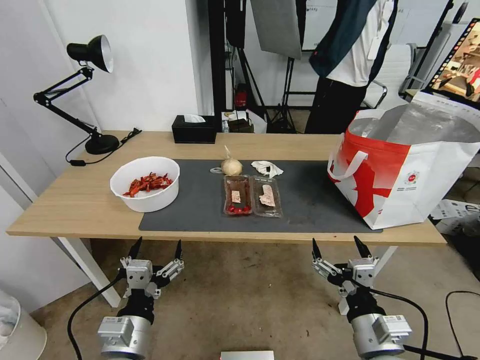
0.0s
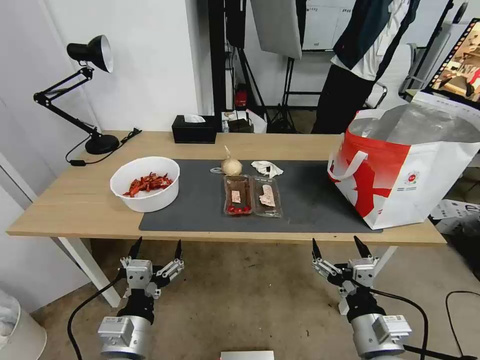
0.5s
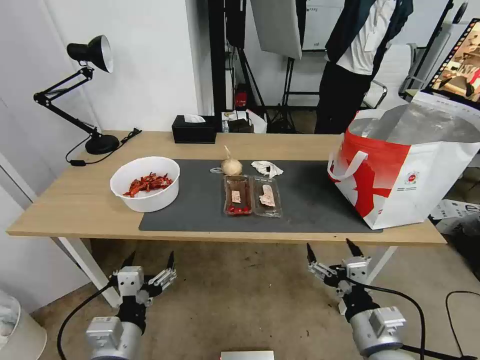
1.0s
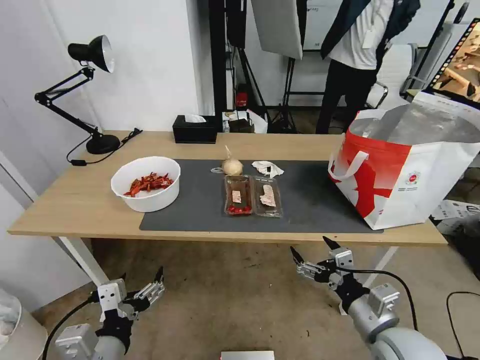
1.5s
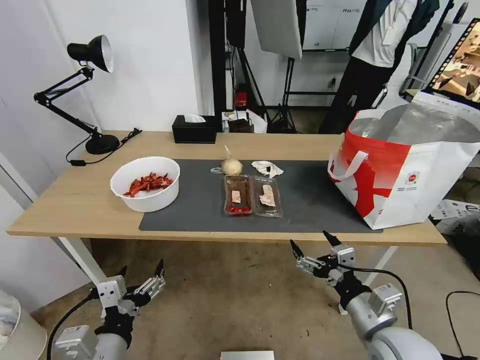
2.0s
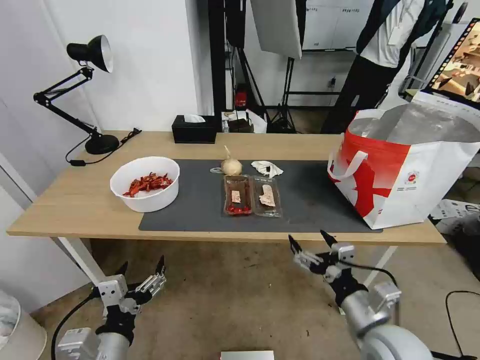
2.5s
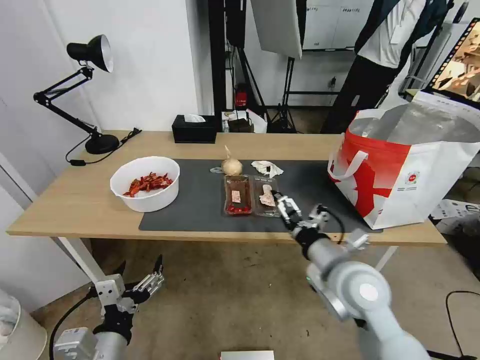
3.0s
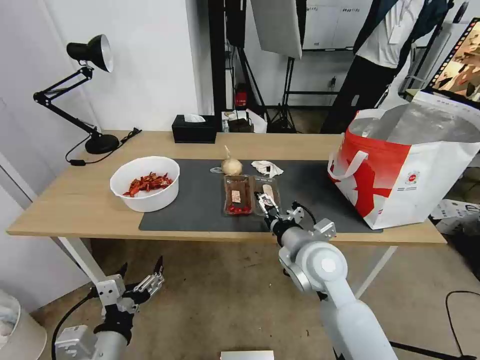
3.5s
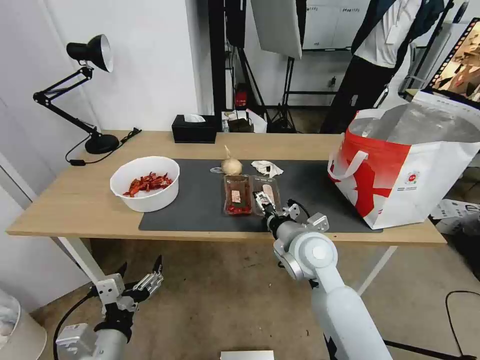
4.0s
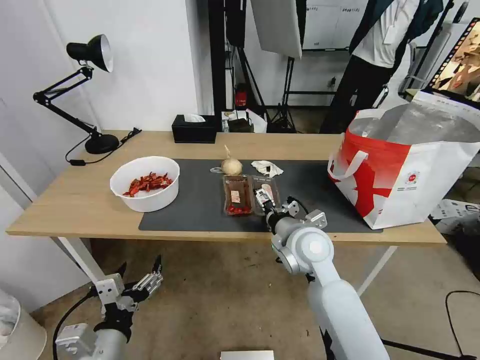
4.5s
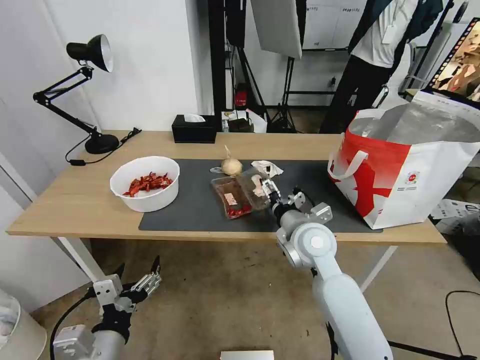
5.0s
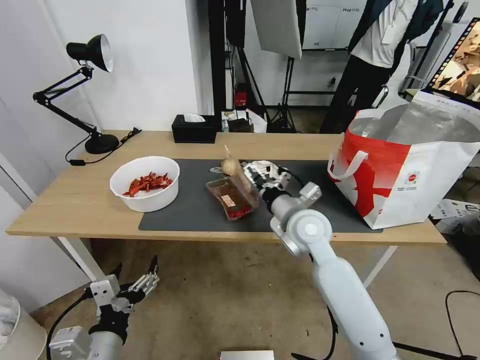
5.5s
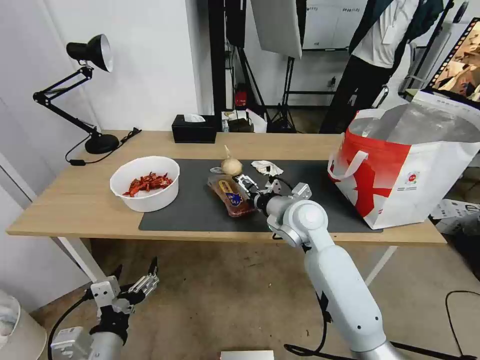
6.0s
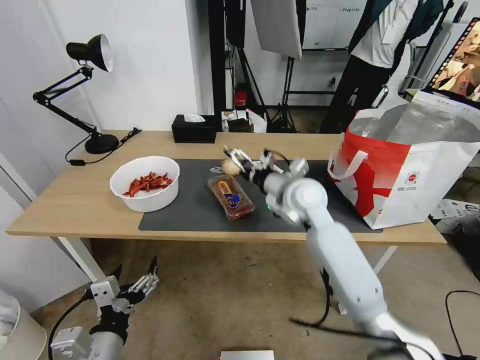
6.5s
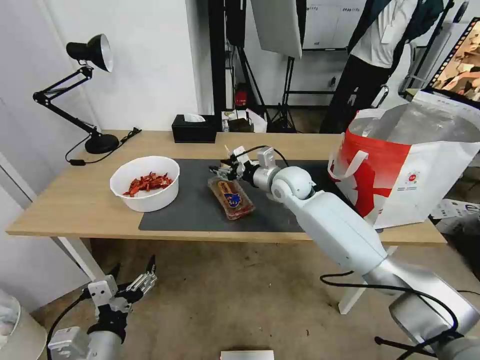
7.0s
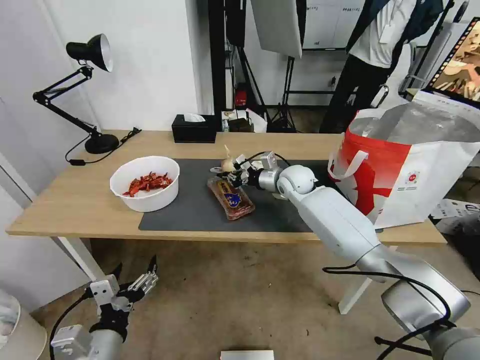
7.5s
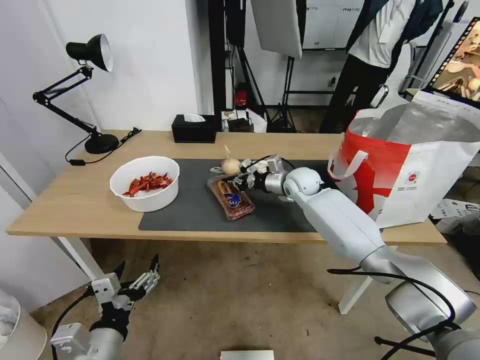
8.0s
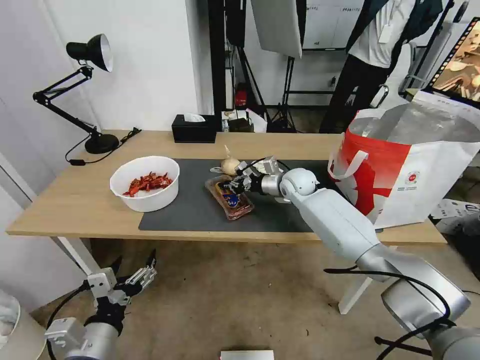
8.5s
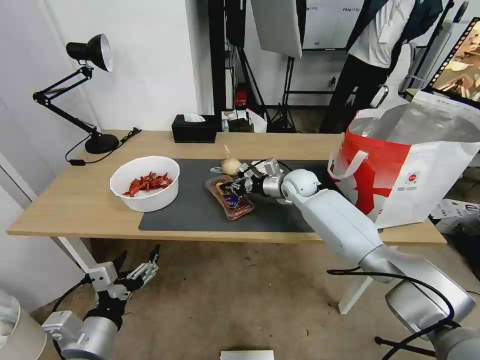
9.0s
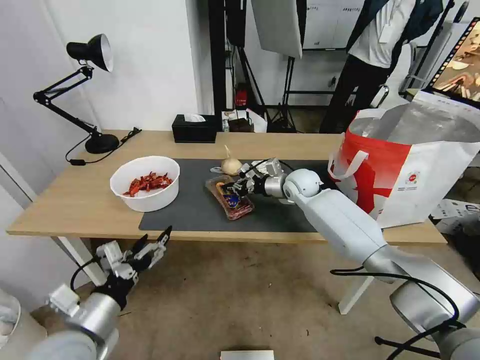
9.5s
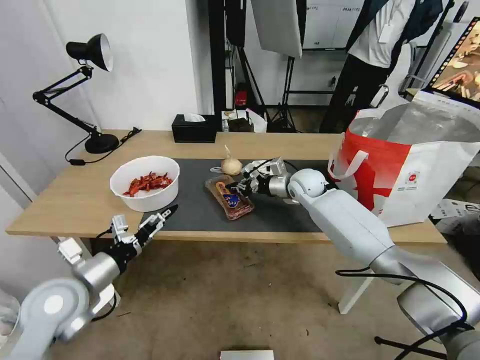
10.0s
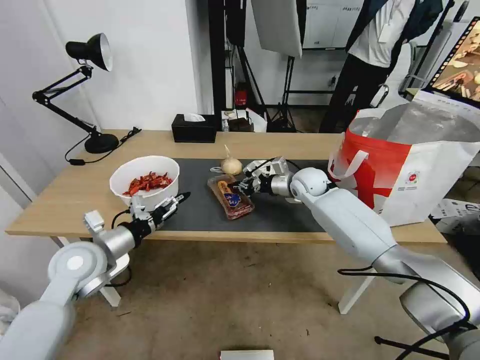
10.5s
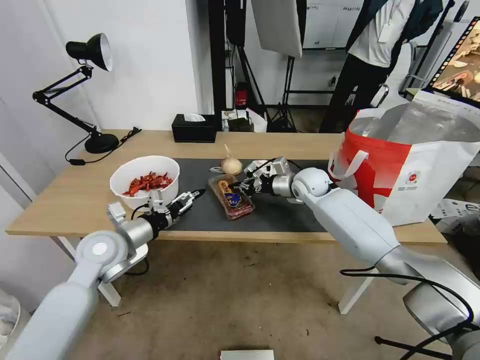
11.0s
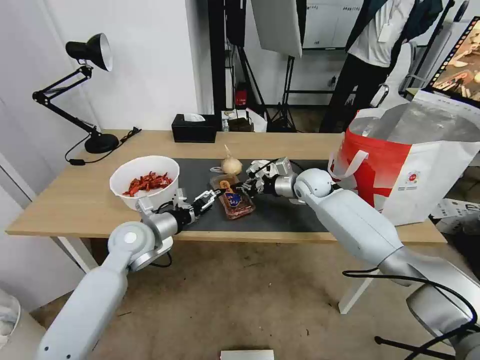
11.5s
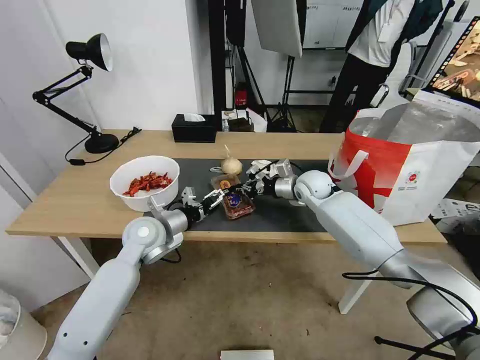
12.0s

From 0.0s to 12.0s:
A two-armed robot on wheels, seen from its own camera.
Task of the whole recording: Pick up the trash from the table and place it into the takeout bag.
From 2.0s to 4.0s: The right gripper moves forward and to the left, about 20 cm.
From 4.0s to 6.0s: The right gripper travels forward by roughly 5 cm.
From 6.0s to 8.0s: The right gripper shifts approximately 15 cm forward, and closes up.
From 8.0s to 10.0s: The left gripper shifts some 15 cm forward, to the left and upward.
From 10.0s to 12.0s: The left gripper travels forward and to the right by approximately 20 cm.

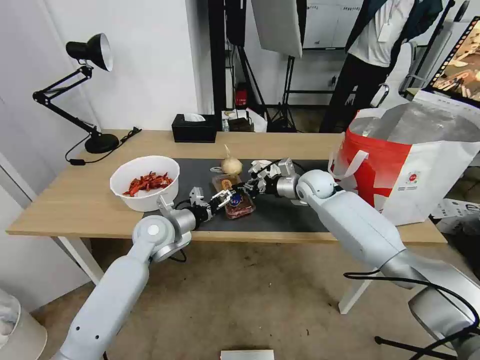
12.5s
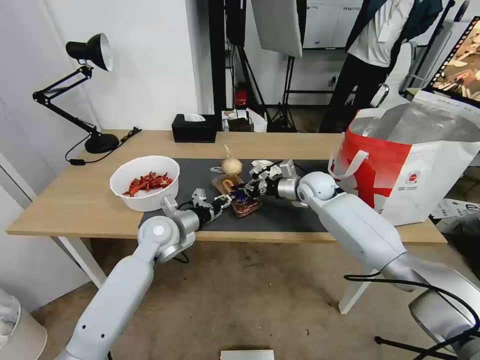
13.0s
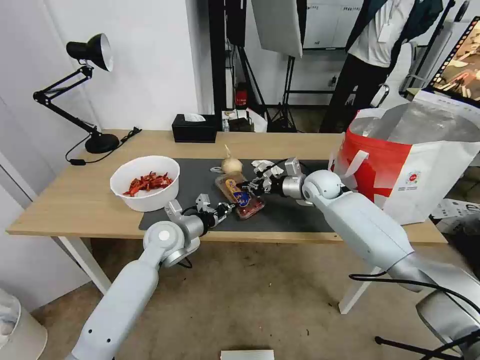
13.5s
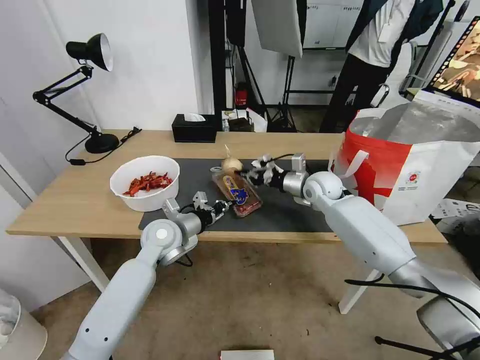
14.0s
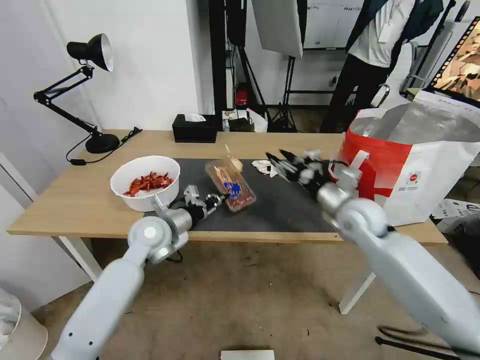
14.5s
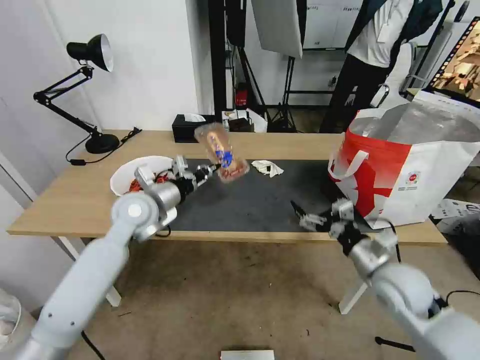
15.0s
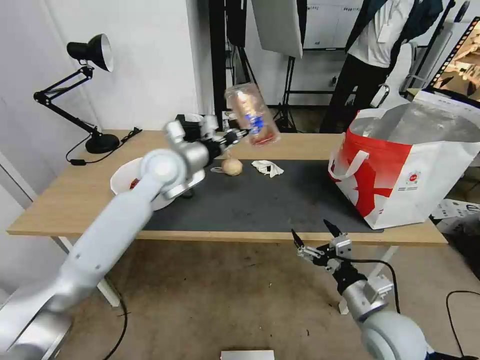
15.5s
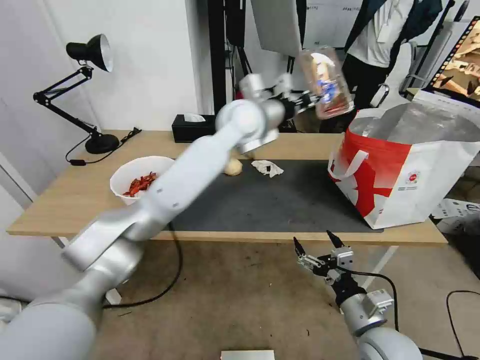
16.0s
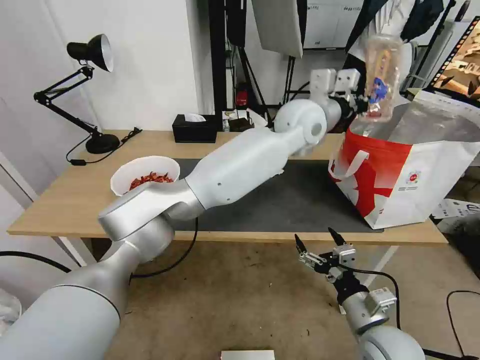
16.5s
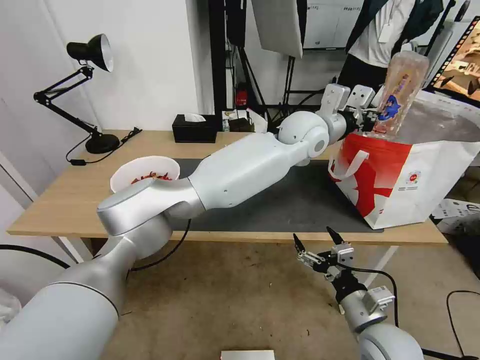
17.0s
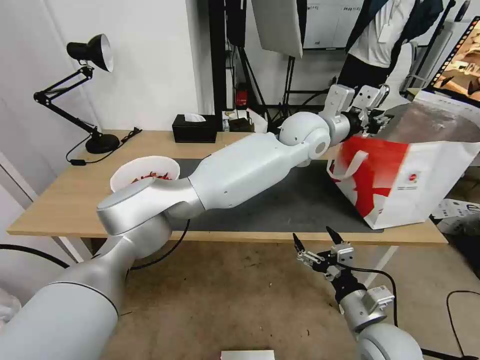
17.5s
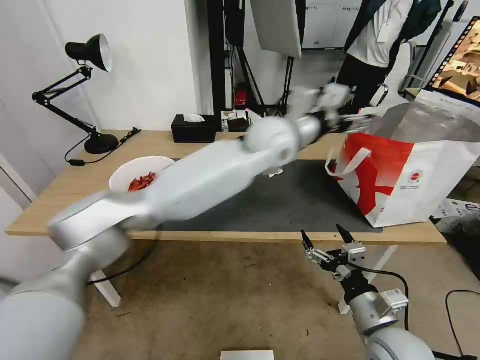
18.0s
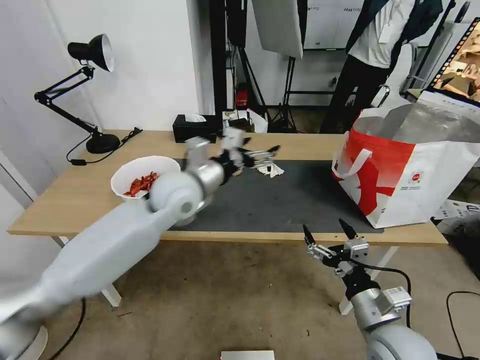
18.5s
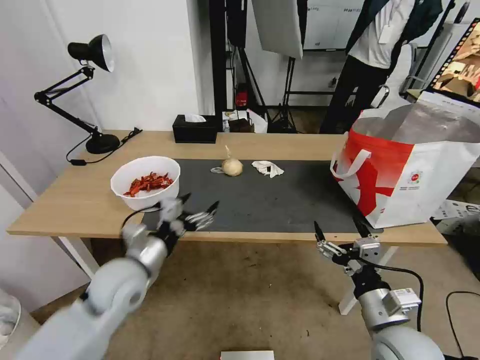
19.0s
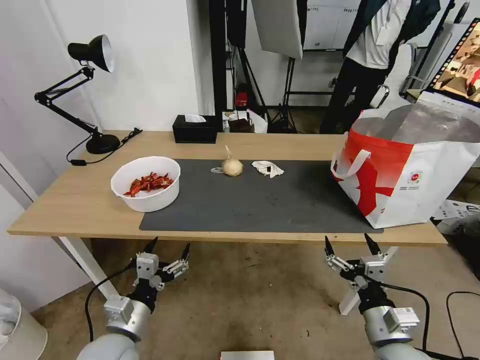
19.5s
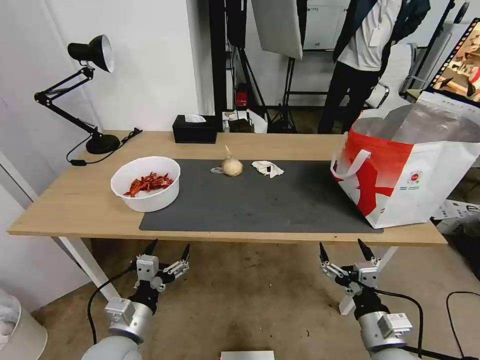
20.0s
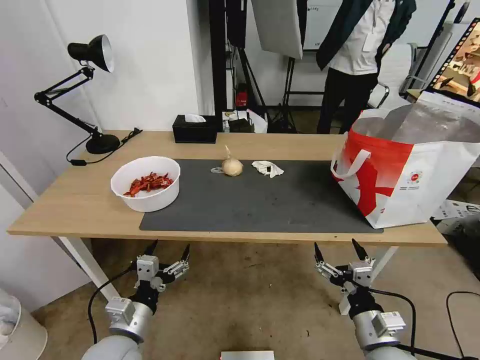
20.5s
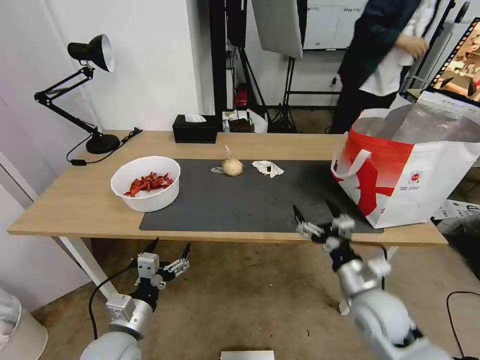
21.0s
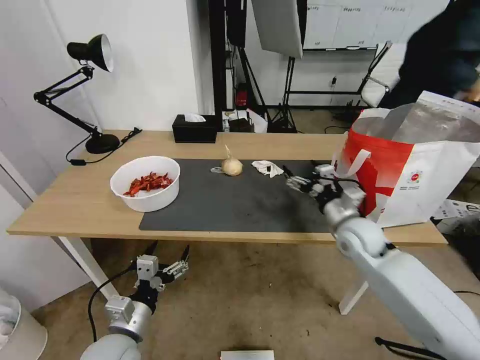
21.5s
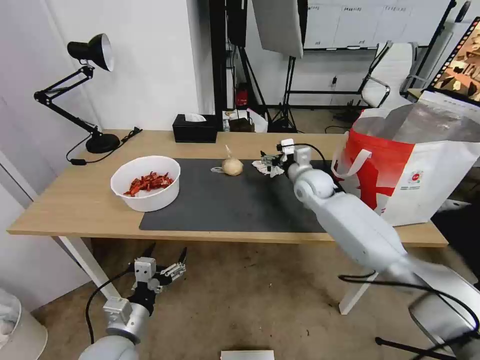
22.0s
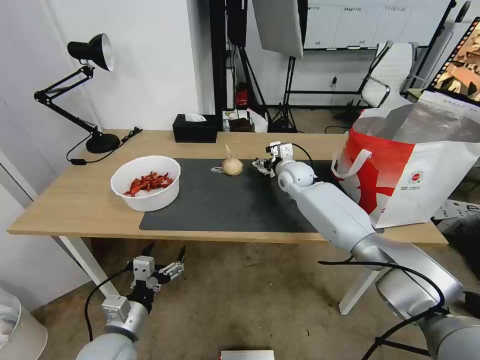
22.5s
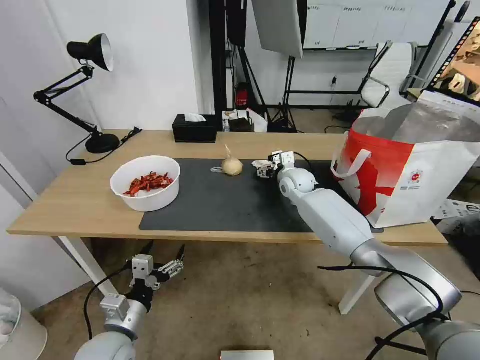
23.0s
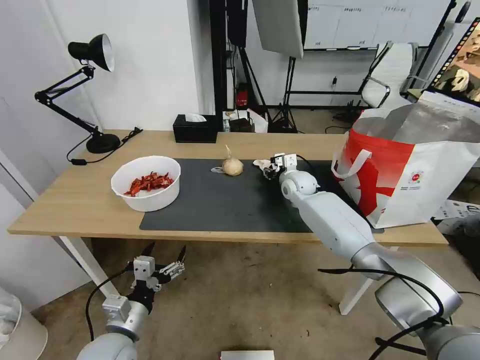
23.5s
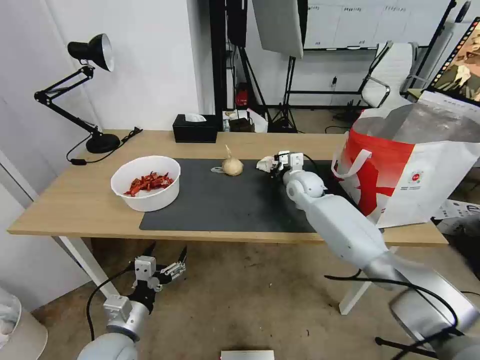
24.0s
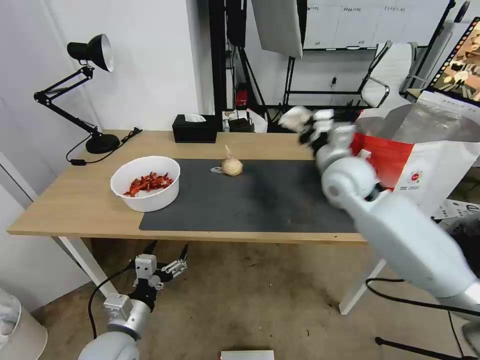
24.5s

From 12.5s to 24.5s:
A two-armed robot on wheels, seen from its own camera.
Task of the whole recording: Pick up the trash from the table and place it into the takeout bag.
From 12.5s to 14.5s: The right gripper is displaced backward and to the right by roughly 15 cm, and opens up. Meanwhile the left gripper closes.
From 14.5s to 16.5s: The right gripper heads backward, covering some 25 cm, and opens, while the left gripper goes about 40 cm to the right and upward.
From 16.5s to 18.5s: The left gripper travels to the left, downward and backward by some 30 cm, and opens.
From 18.5s to 20.5s: The left gripper travels backward, downward and to the left by about 35 cm; the right gripper ends up approximately 5 cm from where it was.
From 20.5s to 22.5s: The right gripper heads forward, covering some 40 cm.
From 22.5s to 24.5s: The right gripper is displaced backward and upward by about 20 cm, and closes its fingers.

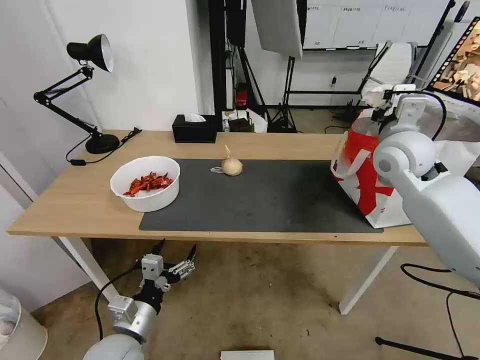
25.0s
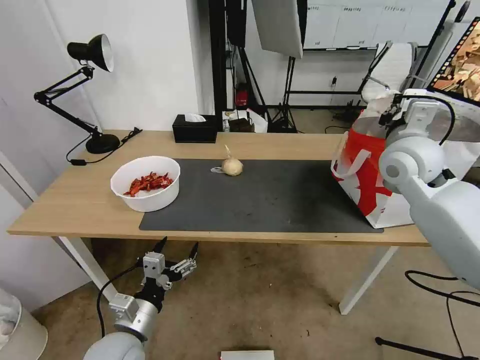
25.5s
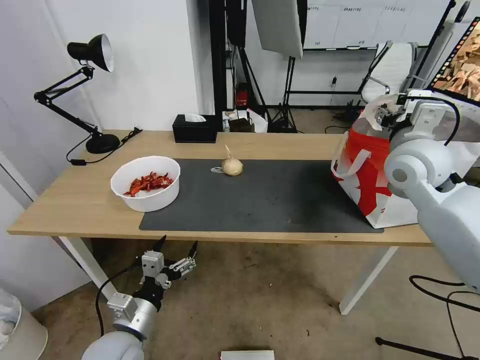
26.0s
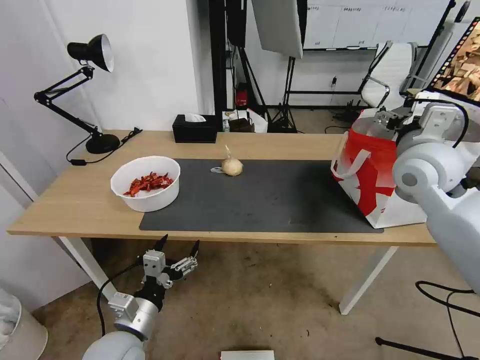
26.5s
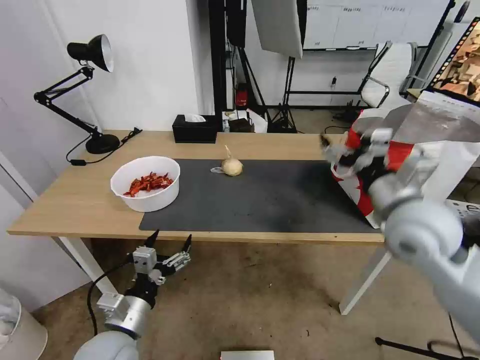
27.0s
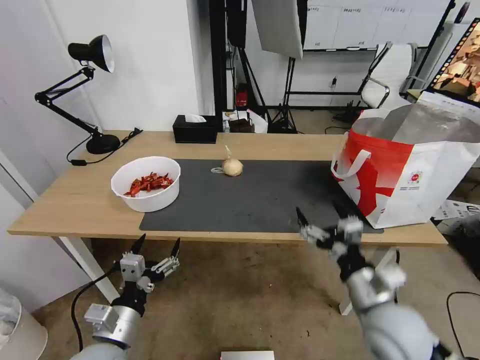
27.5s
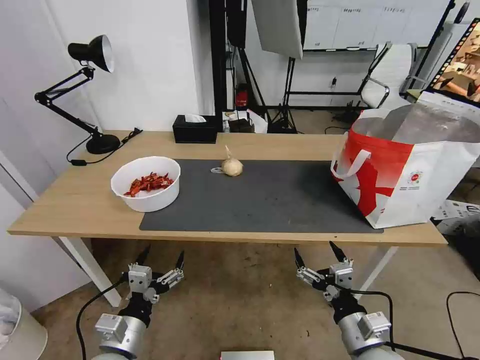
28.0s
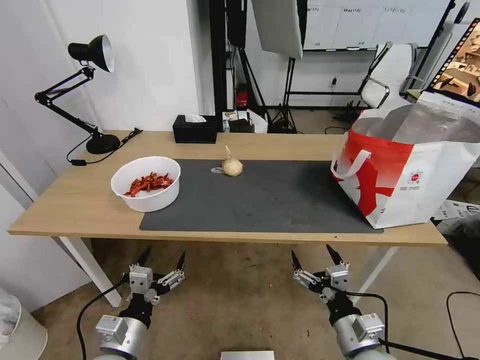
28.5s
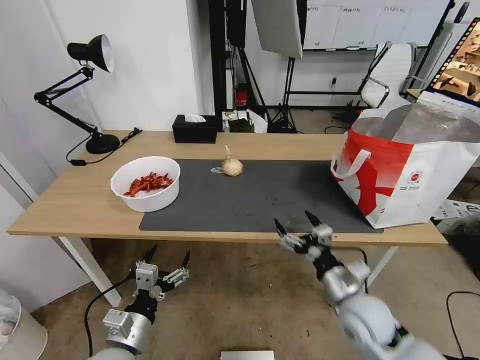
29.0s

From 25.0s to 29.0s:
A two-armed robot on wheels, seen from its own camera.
Task of the whole recording: Pick up the trash from the table and place it into the takeout bag.
From 25.0s to 27.0s: The right gripper goes roughly 15 cm backward, and opens up.
From 27.0s to 29.0s: The right gripper heads downward, covering about 20 cm.
